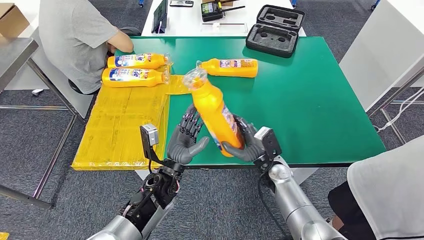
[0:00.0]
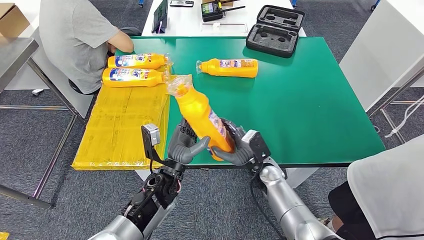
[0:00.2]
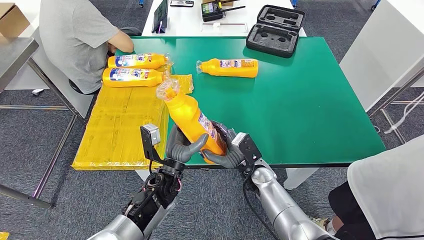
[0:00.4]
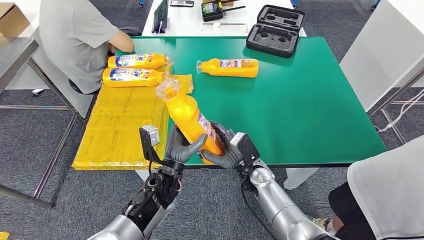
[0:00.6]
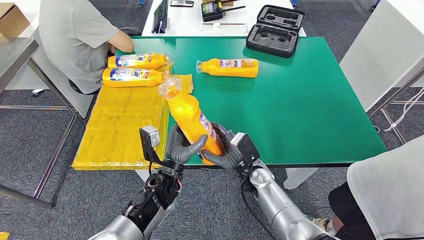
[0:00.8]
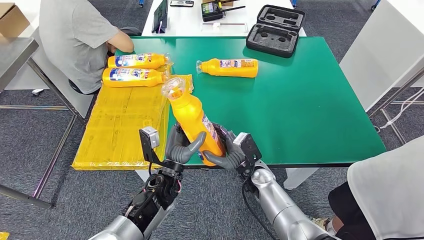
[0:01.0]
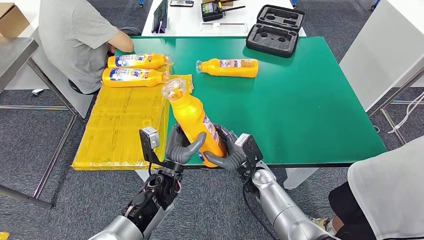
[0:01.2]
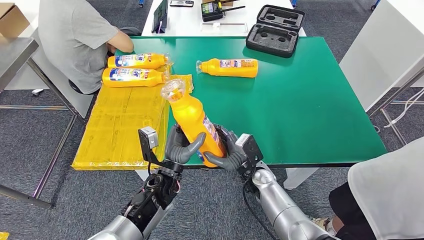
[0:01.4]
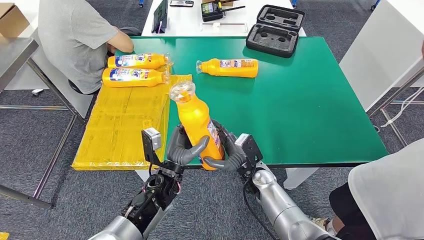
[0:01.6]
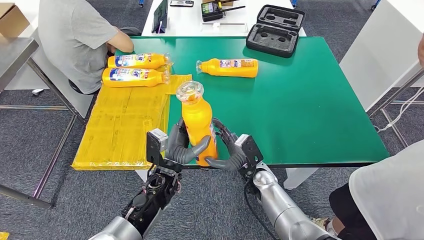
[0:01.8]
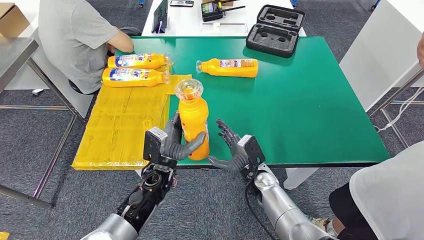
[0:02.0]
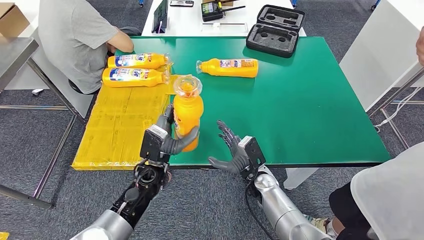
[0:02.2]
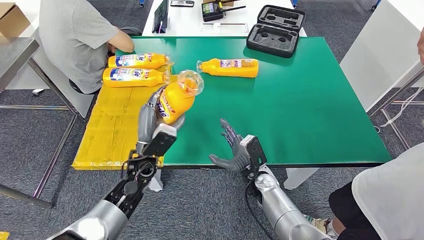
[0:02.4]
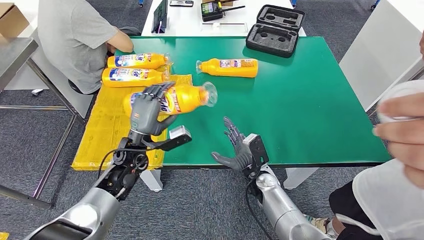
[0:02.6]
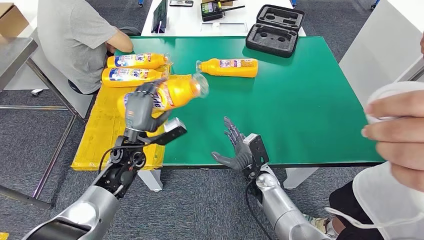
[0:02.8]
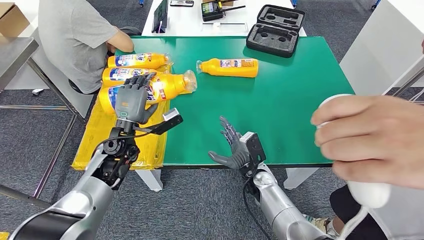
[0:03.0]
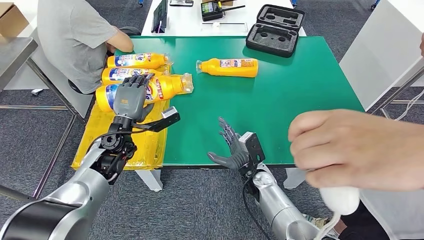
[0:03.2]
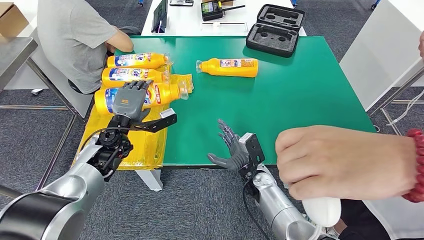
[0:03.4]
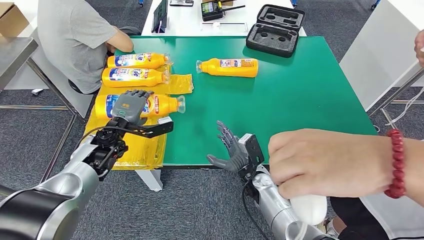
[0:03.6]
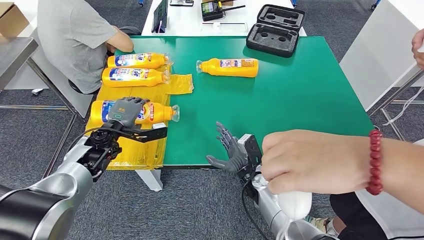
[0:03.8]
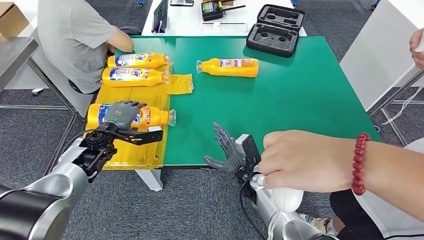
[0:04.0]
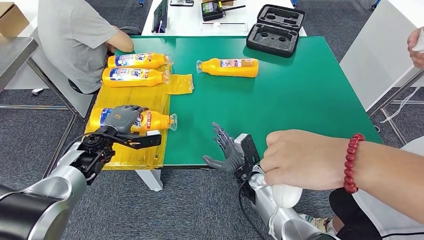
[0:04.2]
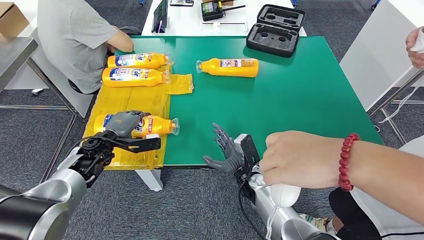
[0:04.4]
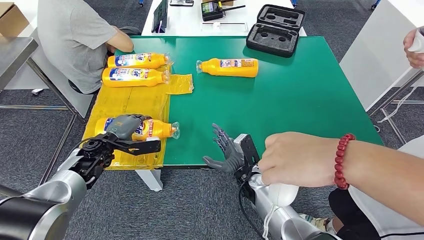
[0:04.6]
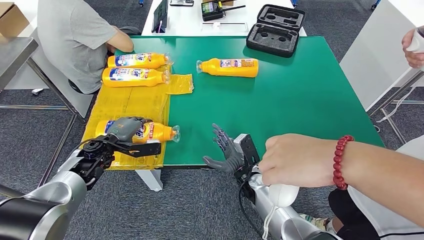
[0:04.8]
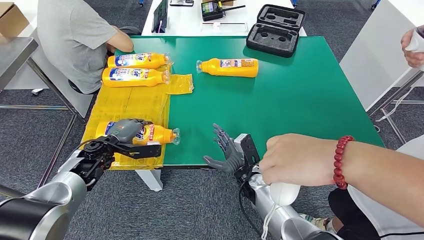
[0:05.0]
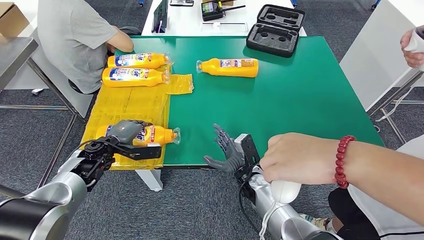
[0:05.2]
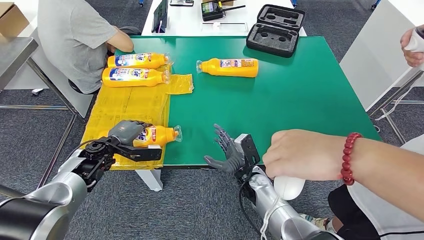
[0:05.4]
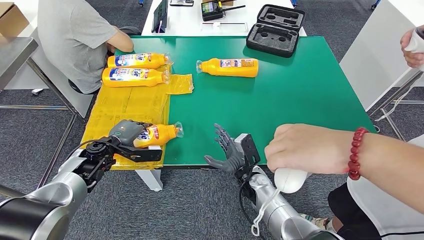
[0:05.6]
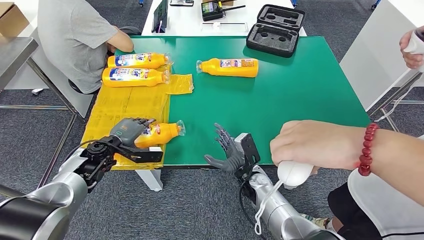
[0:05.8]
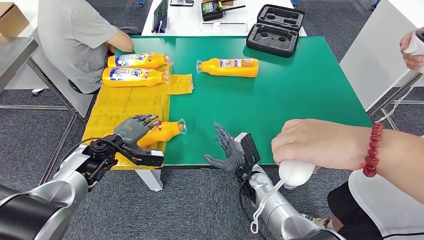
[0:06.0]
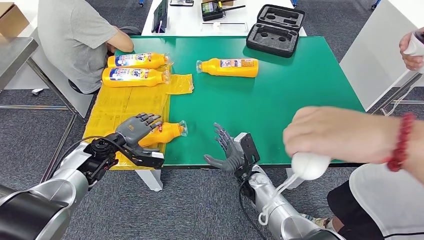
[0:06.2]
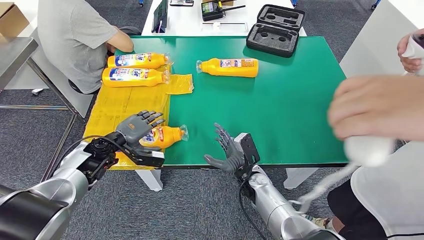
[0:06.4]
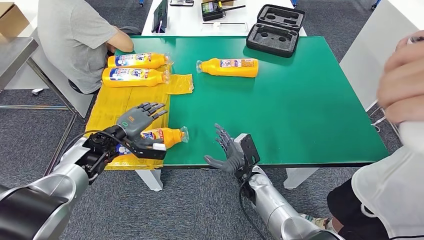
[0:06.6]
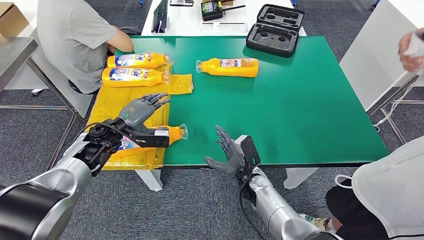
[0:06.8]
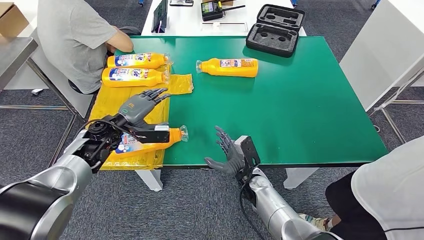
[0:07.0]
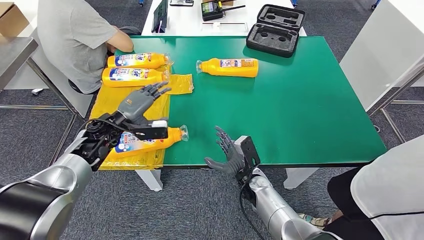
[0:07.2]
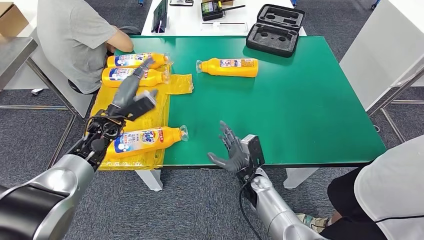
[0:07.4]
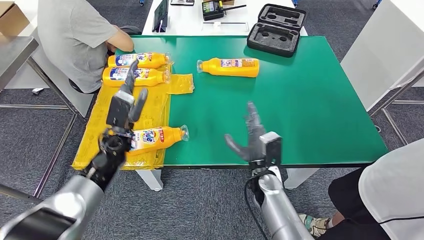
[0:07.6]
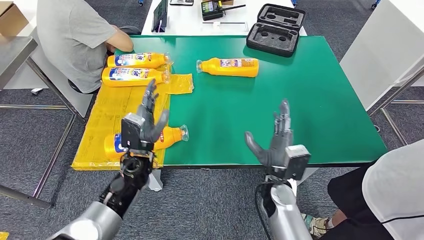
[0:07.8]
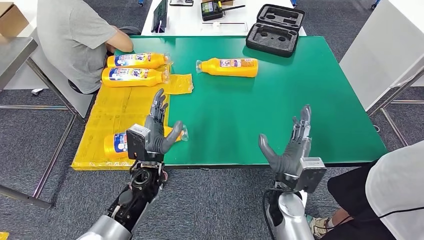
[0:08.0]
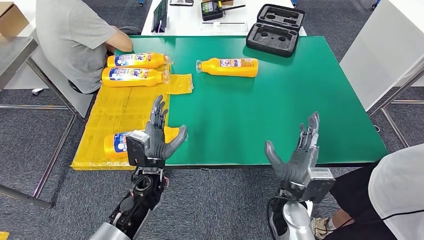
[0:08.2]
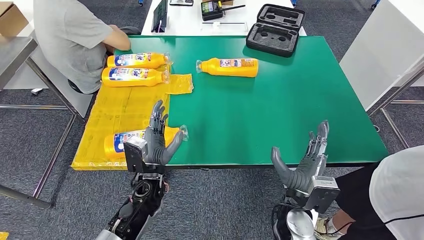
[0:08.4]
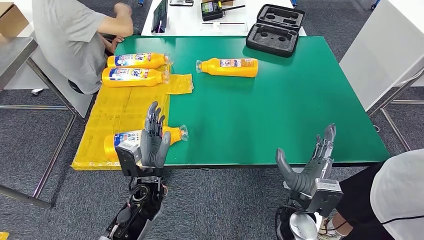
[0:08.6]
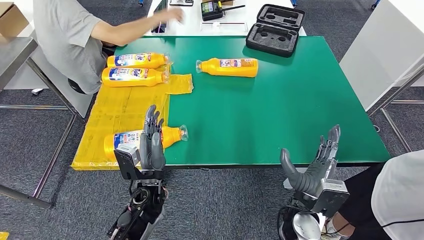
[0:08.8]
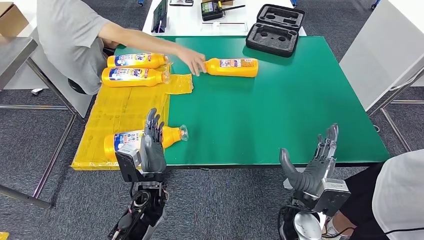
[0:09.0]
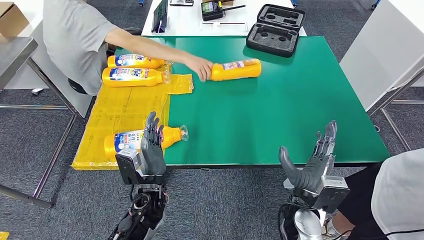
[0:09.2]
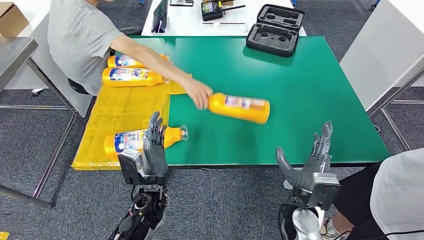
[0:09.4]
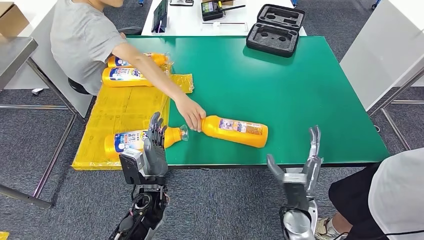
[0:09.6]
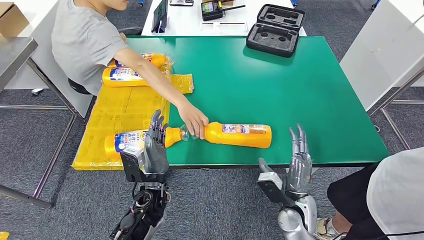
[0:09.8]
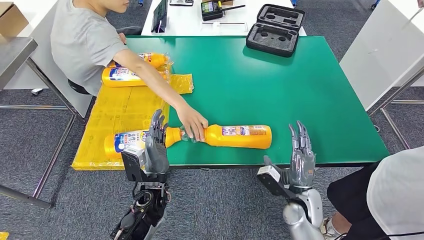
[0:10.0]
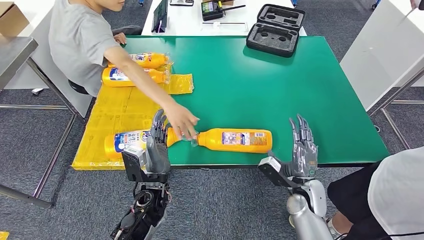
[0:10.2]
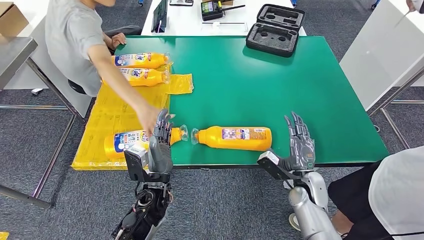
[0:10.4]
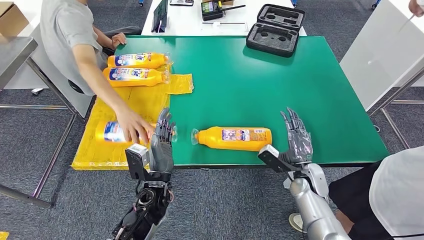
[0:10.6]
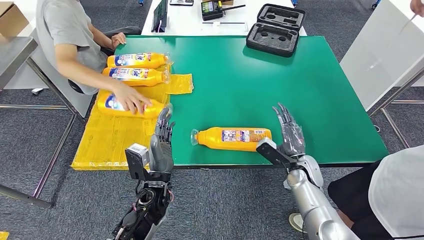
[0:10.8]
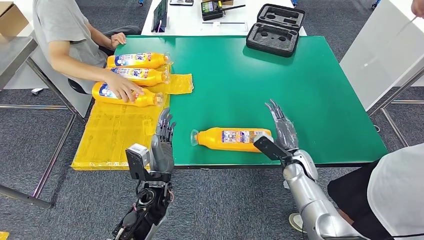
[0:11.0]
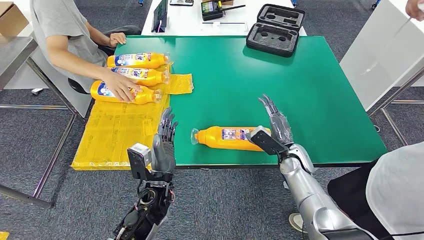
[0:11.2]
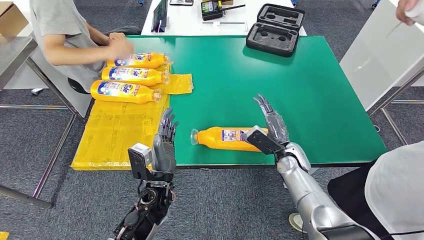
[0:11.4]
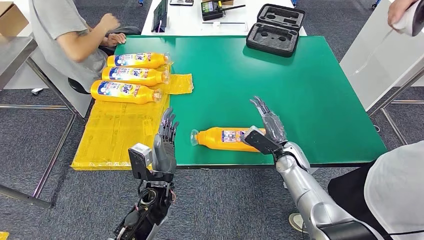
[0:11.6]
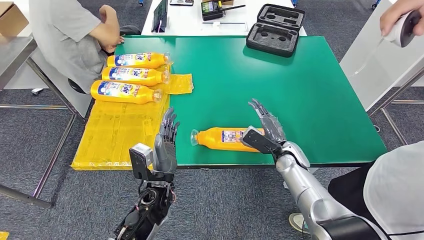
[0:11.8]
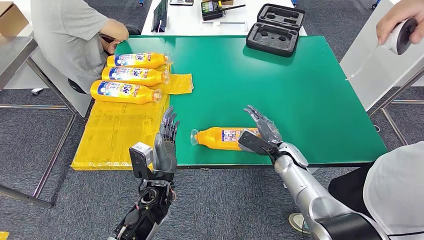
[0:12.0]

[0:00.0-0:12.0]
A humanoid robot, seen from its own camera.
Step, 0:01.0 to 0:04.4: Flip the fast-moving consumer goods bottle to the front side.
0:00.0 to 0:01.6: The hands make only small movements.
0:04.4 to 0:06.0: The hands make only small movements.
0:09.0 to 0:10.4: The right hand shifts roughly 10 cm forward, to the right and downward.
0:10.4 to 0:12.0: The right hand travels forward by some 10 cm.

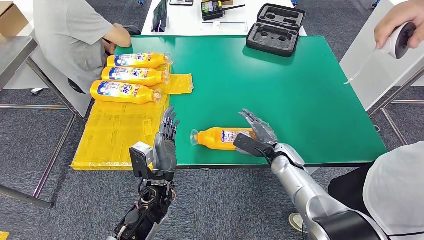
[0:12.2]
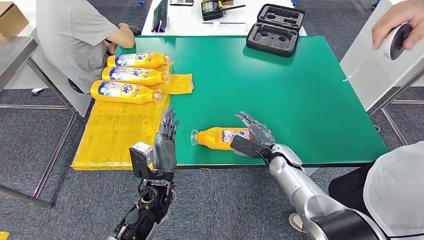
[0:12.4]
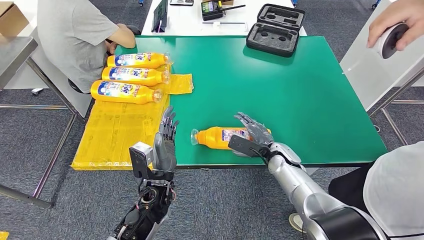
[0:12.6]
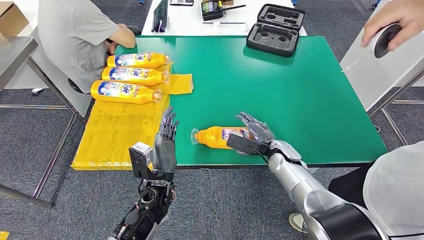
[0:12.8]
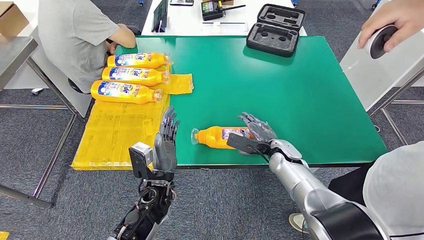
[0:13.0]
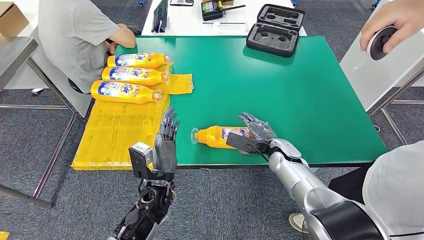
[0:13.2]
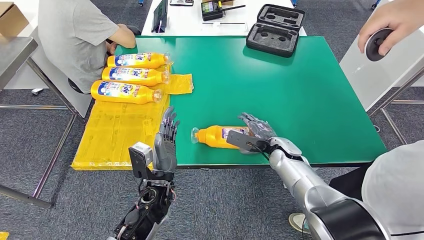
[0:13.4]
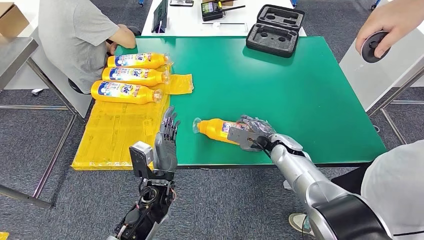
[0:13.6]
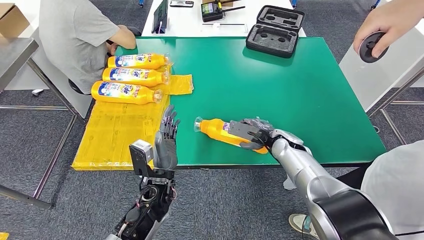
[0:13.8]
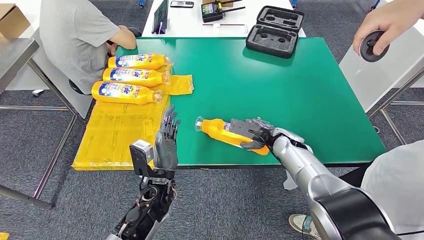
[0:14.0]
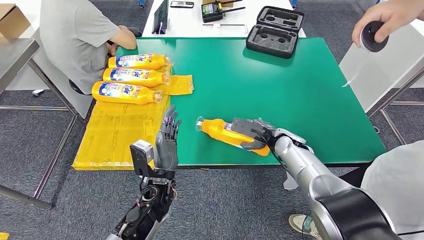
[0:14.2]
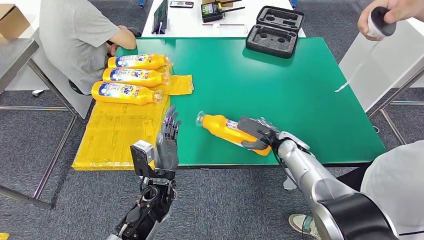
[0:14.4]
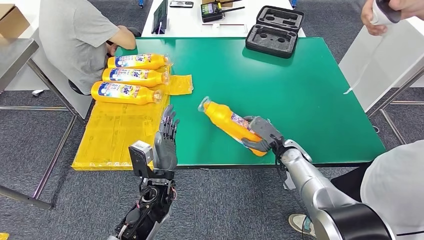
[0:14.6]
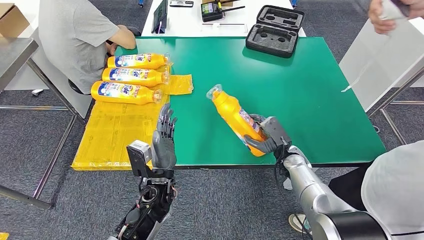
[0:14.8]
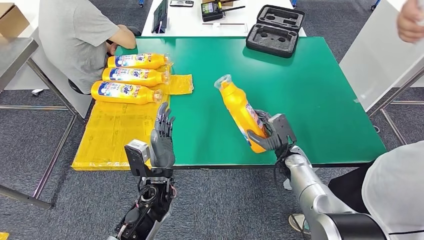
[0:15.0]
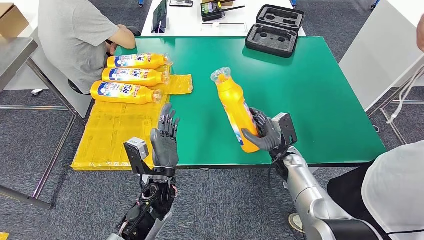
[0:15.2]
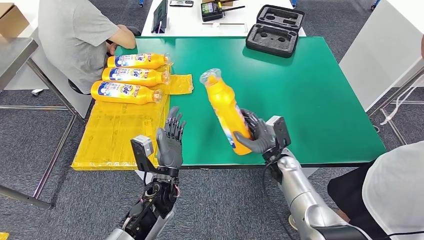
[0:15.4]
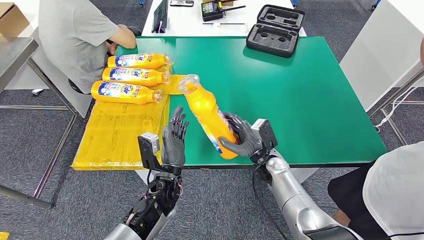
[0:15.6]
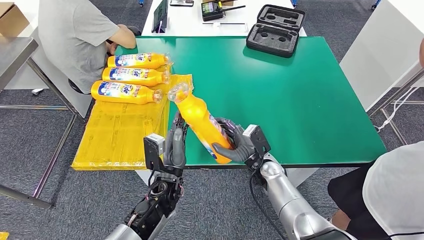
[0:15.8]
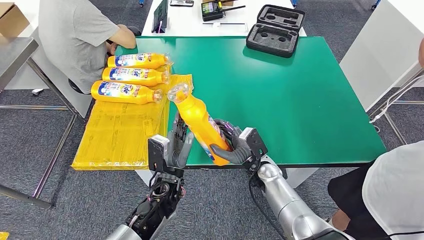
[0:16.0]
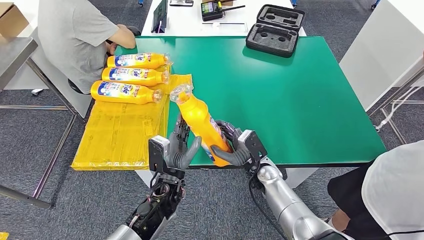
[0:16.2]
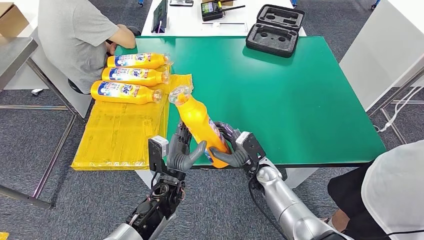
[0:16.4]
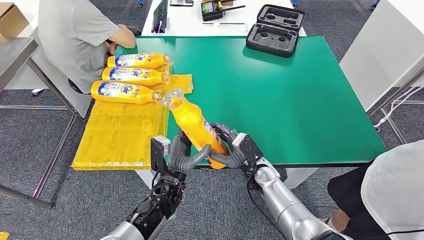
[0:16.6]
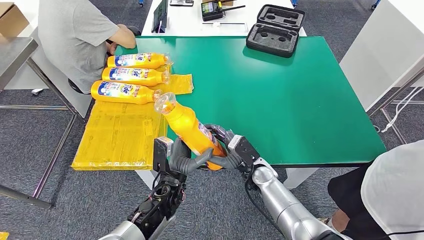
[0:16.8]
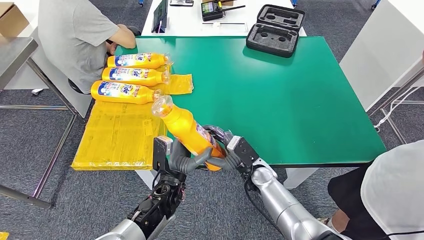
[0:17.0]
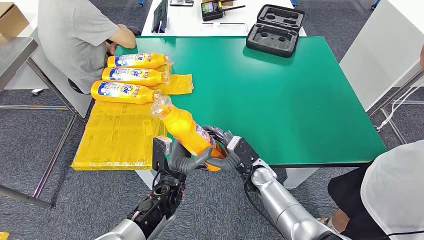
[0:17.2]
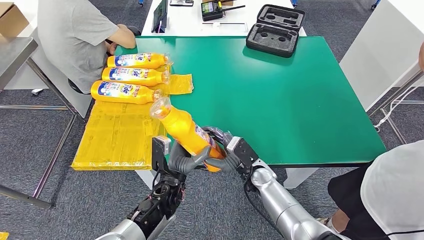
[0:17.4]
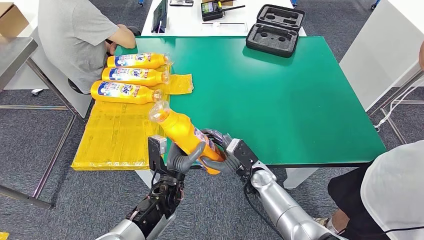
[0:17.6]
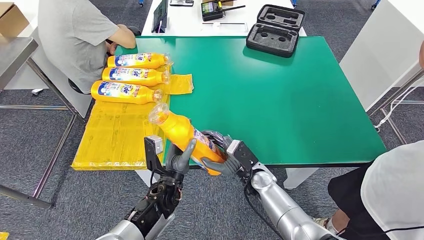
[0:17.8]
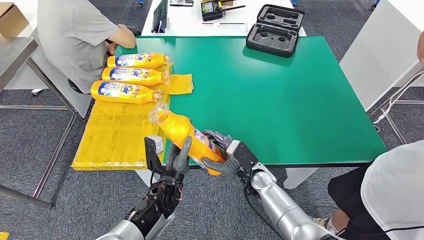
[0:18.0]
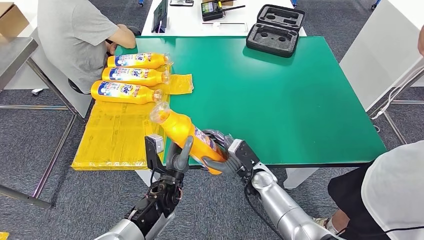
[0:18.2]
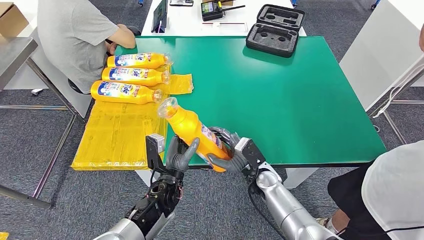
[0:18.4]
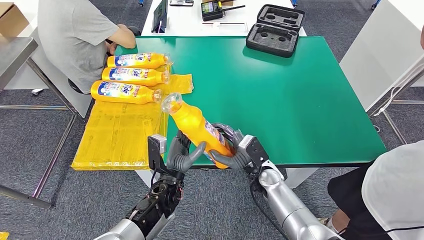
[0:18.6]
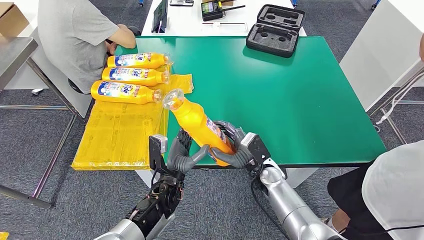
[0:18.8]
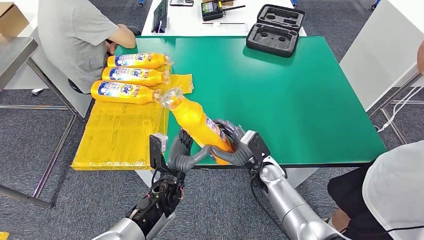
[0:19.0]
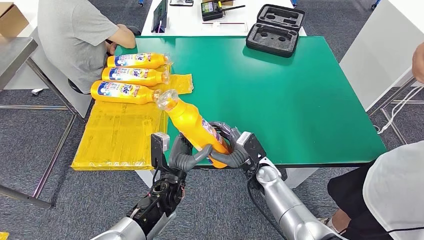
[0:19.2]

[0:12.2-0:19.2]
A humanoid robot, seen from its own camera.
Step, 0:12.2 to 0:16.0: Pick up the fast-moving consumer goods bottle from the table.
0:15.0 to 0:16.4: The right hand is displaced to the left by approximately 10 cm.
0:16.4 to 0:19.2: The hands move only a little.
